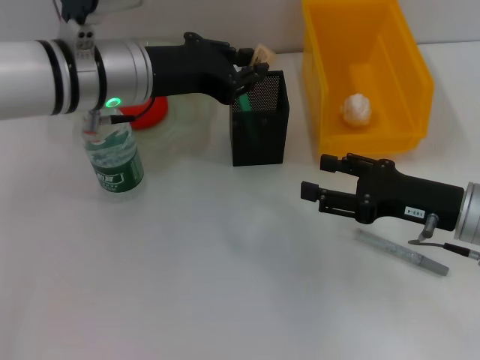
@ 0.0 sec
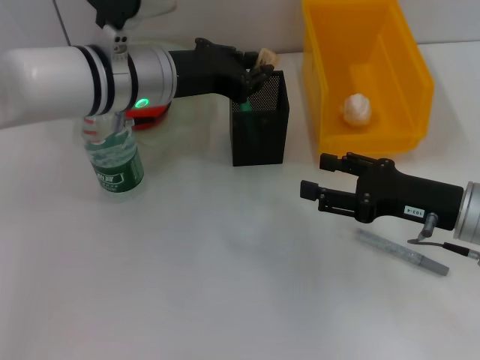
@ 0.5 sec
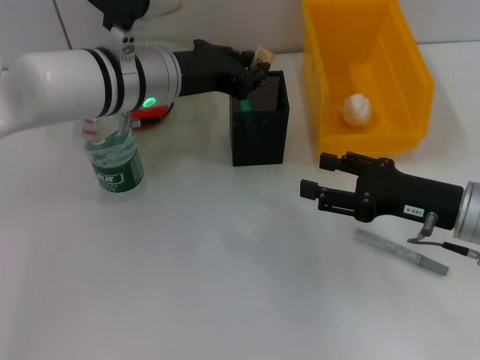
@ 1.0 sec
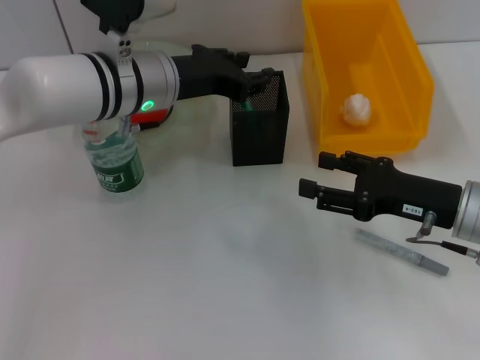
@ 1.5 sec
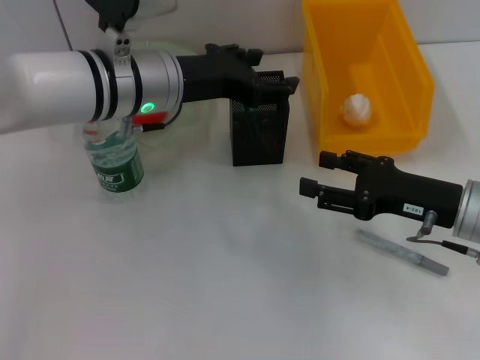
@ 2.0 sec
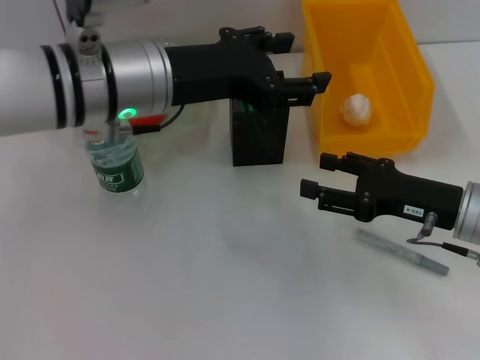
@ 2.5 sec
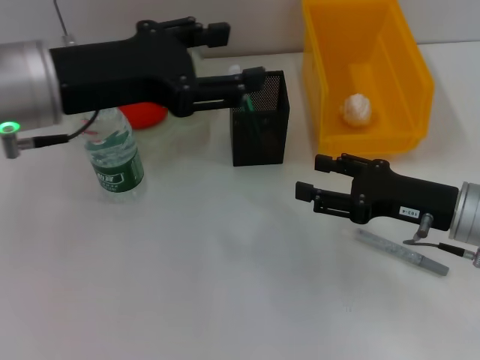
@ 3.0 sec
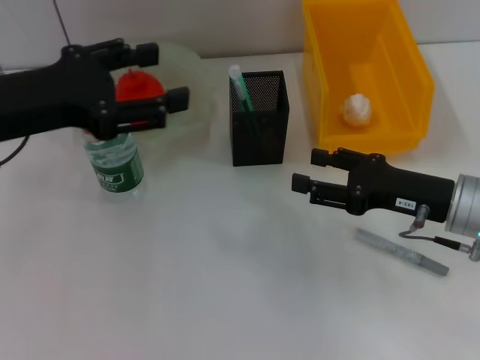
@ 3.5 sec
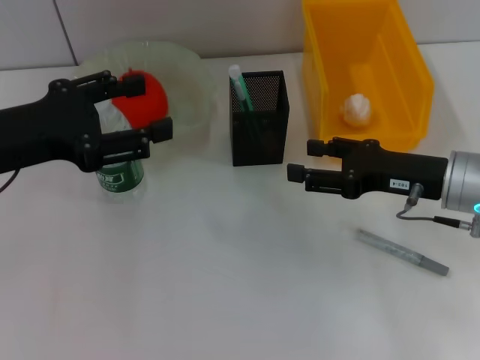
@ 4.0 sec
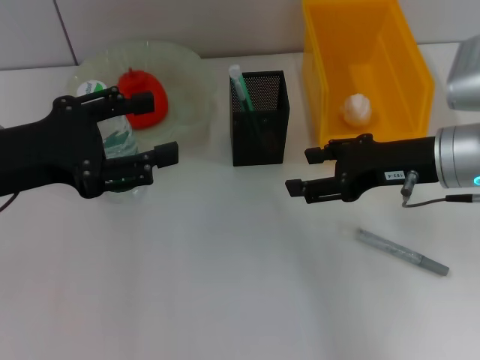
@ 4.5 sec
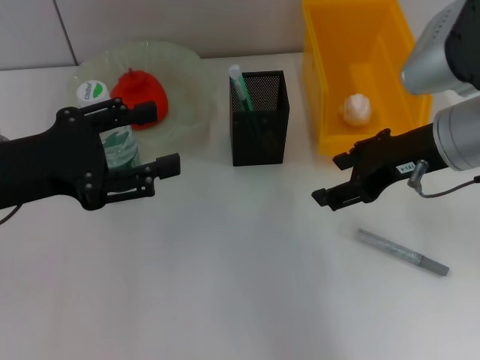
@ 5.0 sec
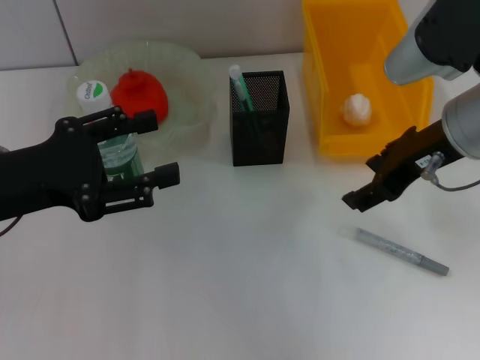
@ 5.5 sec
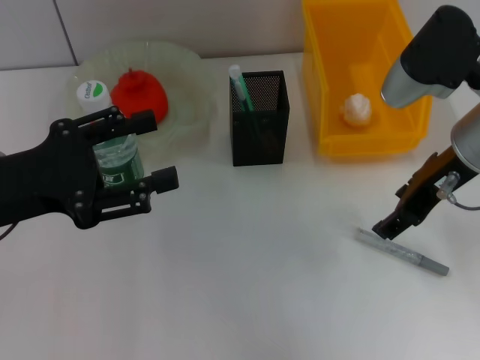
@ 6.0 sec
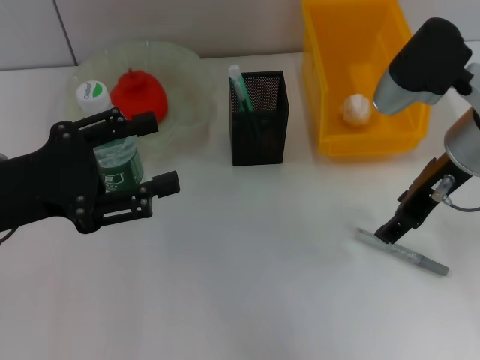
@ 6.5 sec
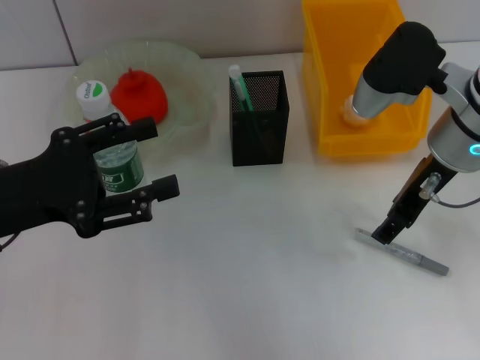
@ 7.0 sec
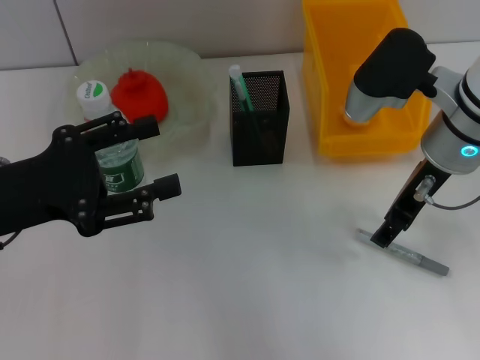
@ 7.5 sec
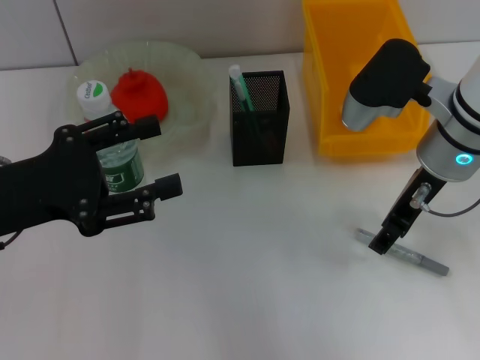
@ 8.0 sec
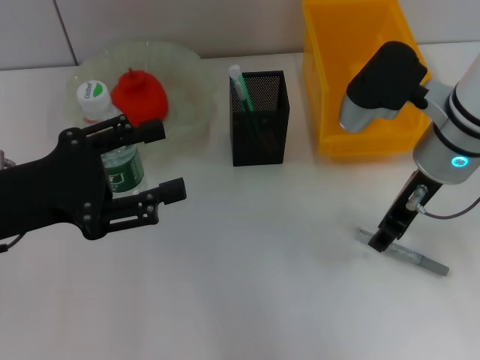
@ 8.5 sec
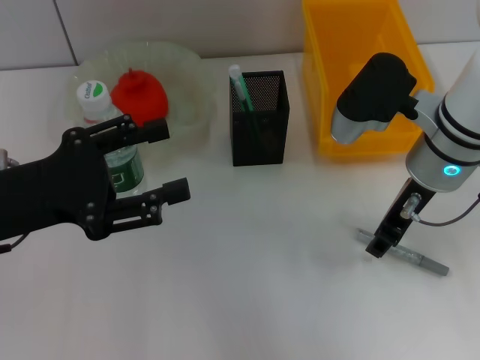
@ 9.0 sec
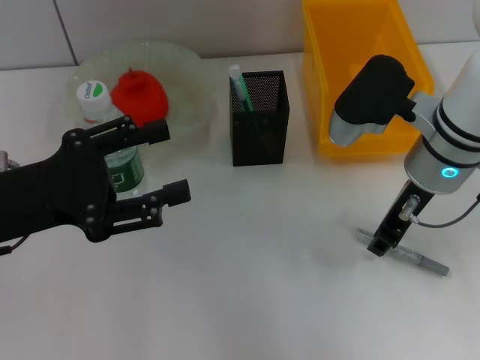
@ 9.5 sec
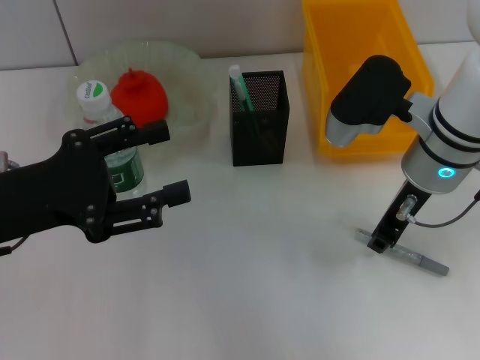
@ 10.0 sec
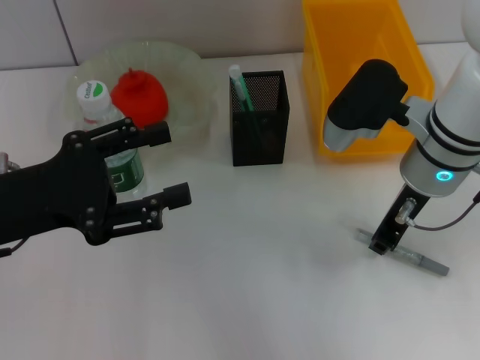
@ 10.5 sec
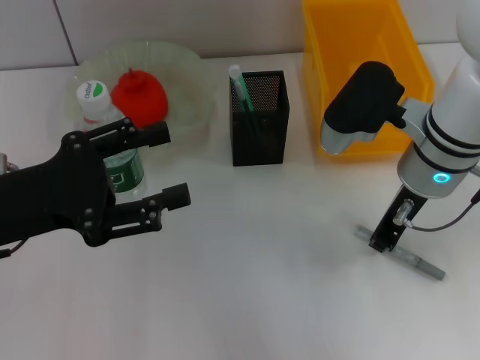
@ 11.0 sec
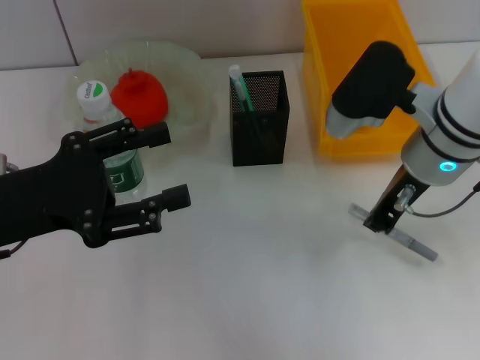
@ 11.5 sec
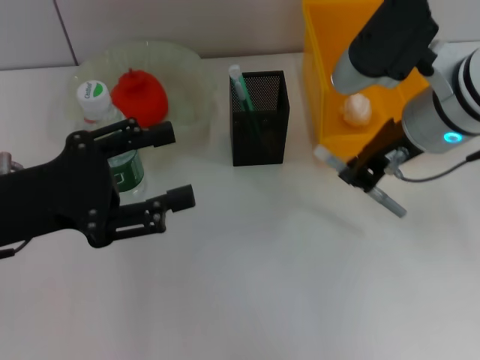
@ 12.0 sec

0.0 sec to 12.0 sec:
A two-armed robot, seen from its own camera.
Step, 2.0 sec to 11.0 sec: Grab the gray glue with the right hand.
0.0 sec to 2.0 sec: The left gripper opens up.
2.0 sec to 4.0 sec: The left gripper travels to the left and backward by approximately 20 cm.
4.0 sec to 6.0 sec: The right gripper goes about 10 cm upward.
6.0 sec to 8.0 sec: There are only small adjustments of the grippers.
8.0 sec to 10.0 sec: The right gripper closes its fingers.
10.0 sec to 12.0 sec: The right gripper ends up approximately 5 cm from where it was.

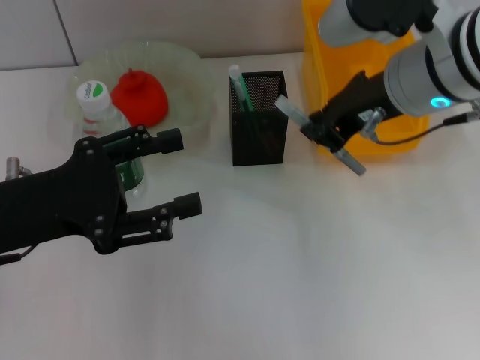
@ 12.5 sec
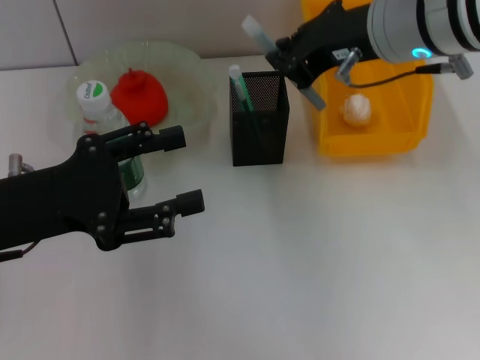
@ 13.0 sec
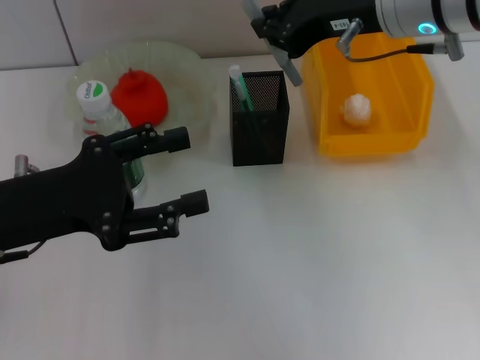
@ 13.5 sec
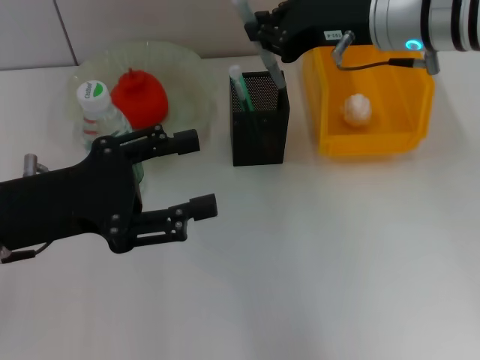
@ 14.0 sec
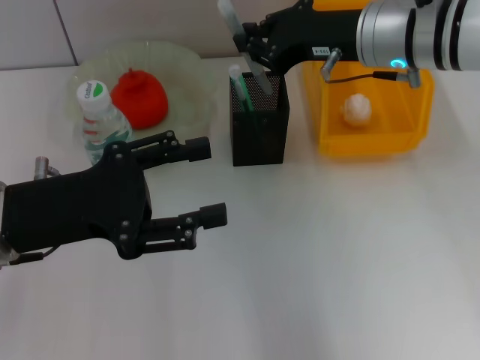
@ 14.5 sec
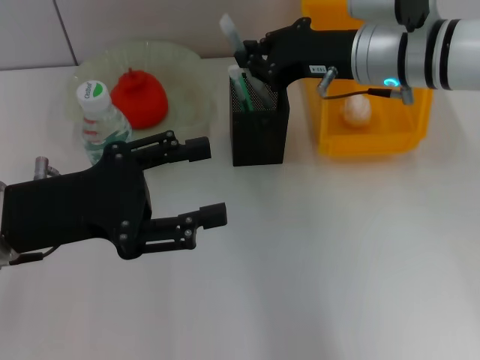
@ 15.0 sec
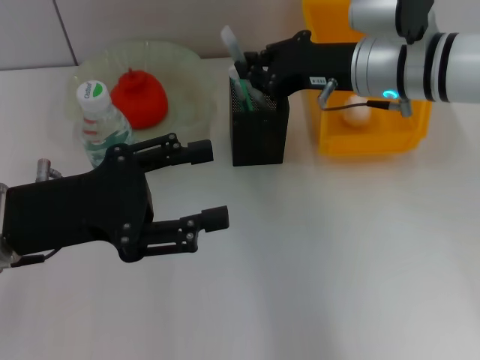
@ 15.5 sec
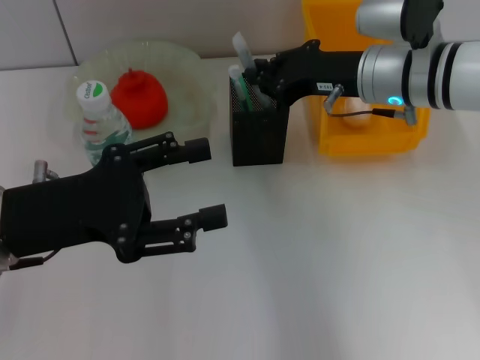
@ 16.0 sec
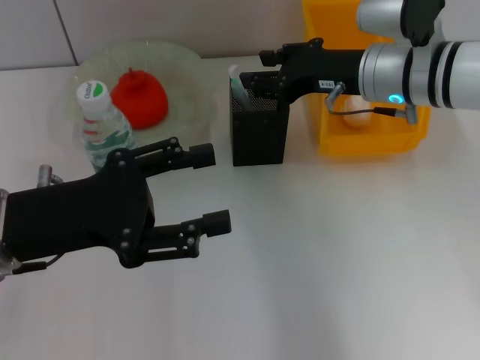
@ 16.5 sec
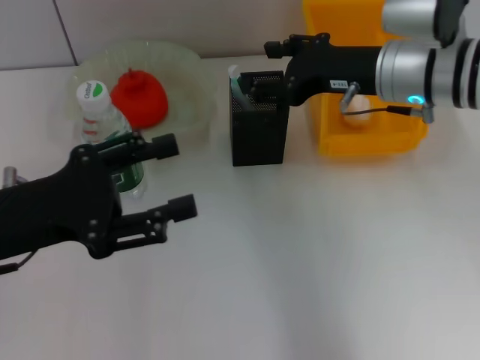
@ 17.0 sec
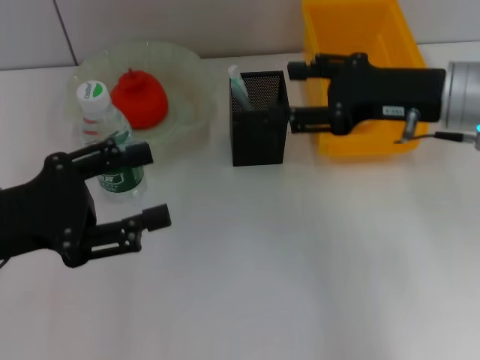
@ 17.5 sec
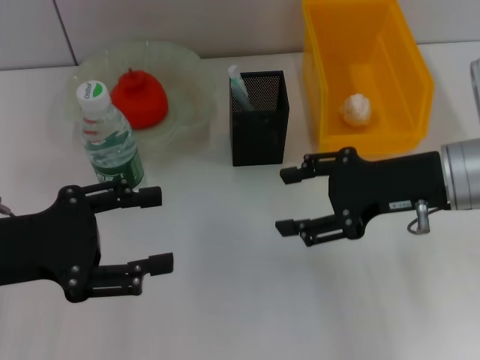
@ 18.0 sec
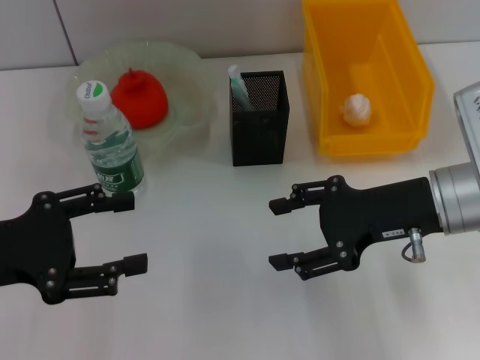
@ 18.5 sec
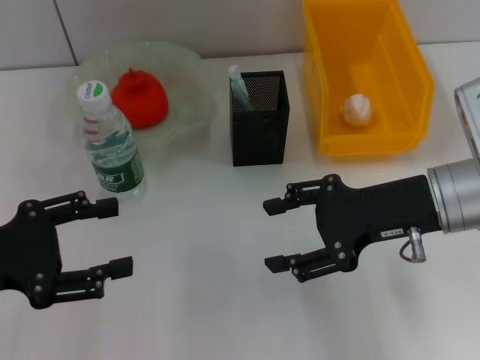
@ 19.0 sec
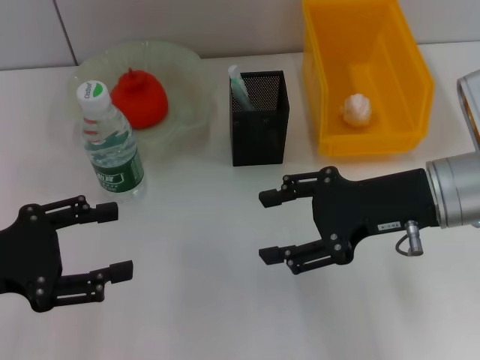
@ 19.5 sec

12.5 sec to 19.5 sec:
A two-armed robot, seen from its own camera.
Step, 12.5 sec to 16.5 sec: Place the gray glue into the pen holder with the right hand.
12.5 sec to 14.5 sec: The right gripper moves forward, roughly 5 cm.
14.5 sec to 16.0 sec: The grippers stay close to where they were, moving slightly.
16.0 sec to 17.5 sec: The right gripper shifts roughly 10 cm backward and to the right, and opens.
17.5 sec to 19.5 sec: The right gripper goes approximately 5 cm backward.

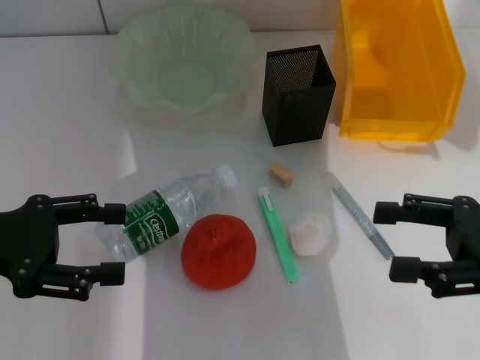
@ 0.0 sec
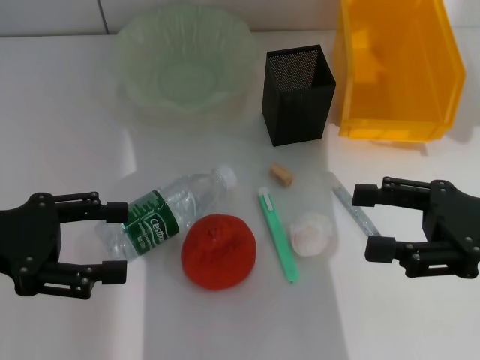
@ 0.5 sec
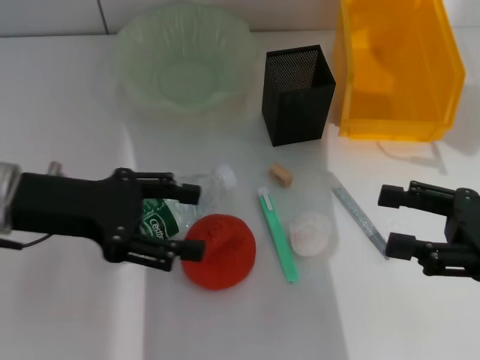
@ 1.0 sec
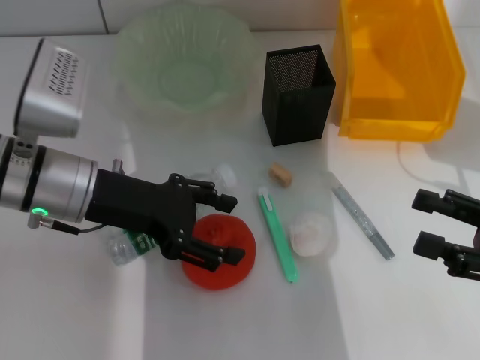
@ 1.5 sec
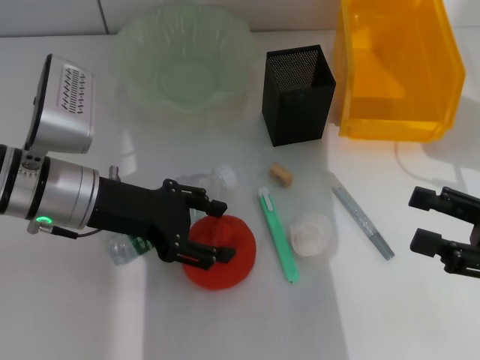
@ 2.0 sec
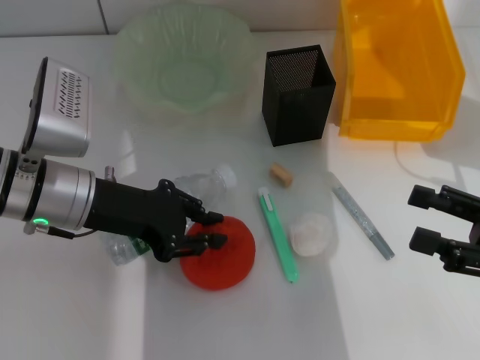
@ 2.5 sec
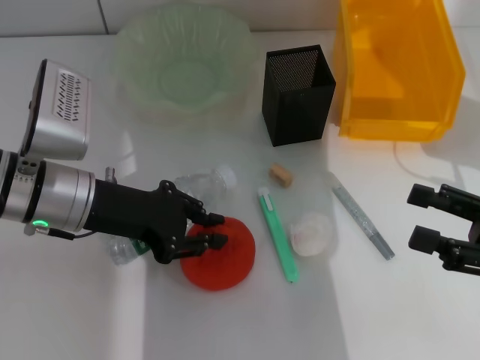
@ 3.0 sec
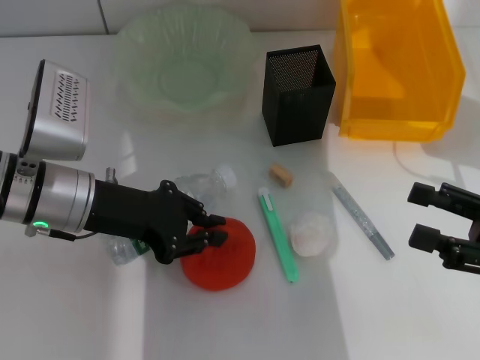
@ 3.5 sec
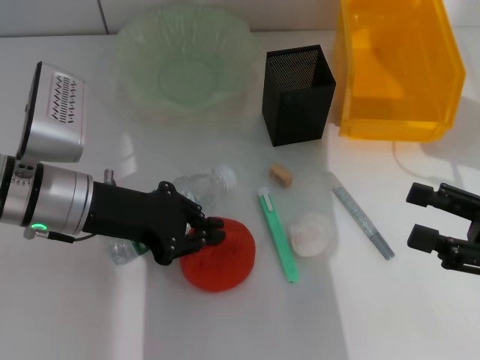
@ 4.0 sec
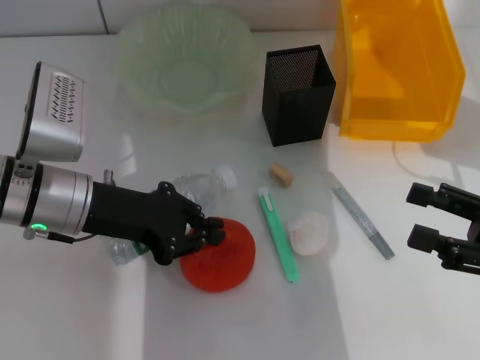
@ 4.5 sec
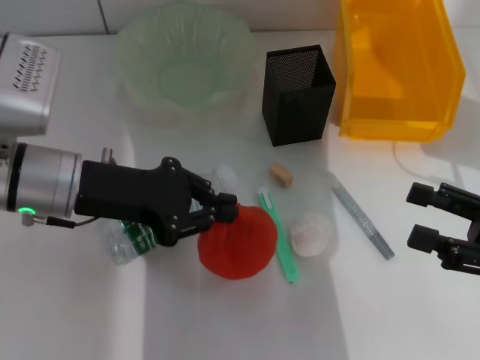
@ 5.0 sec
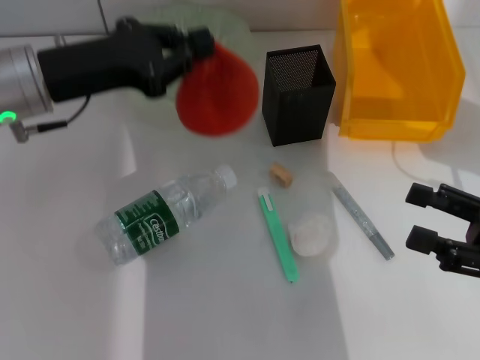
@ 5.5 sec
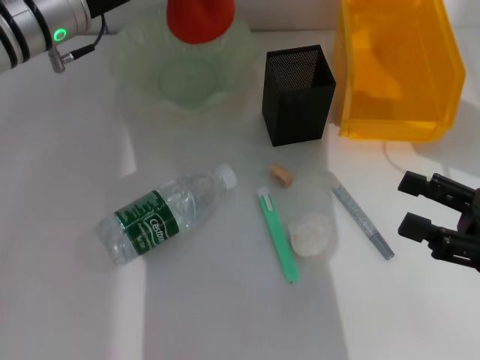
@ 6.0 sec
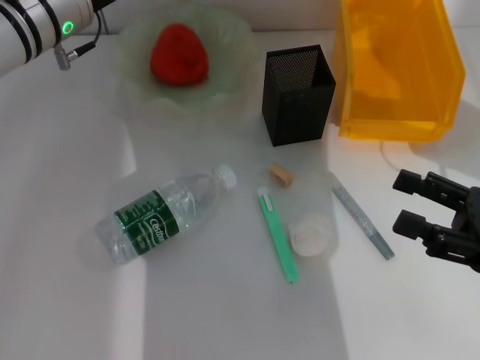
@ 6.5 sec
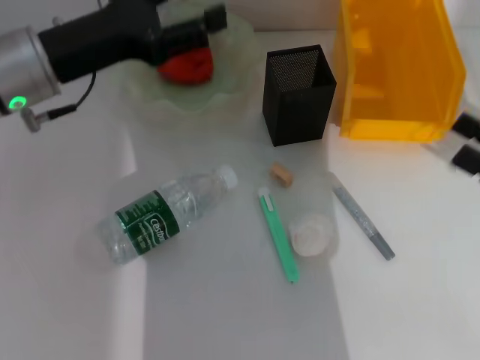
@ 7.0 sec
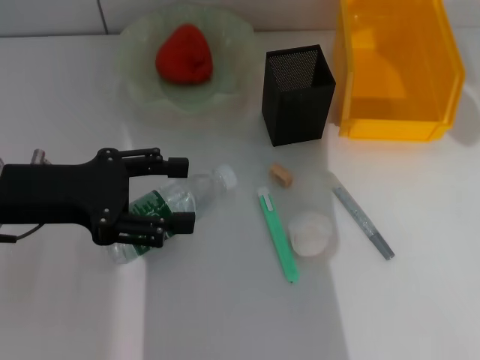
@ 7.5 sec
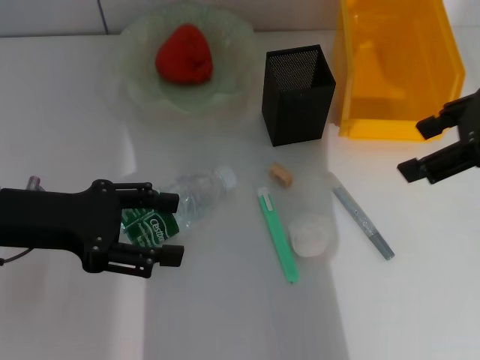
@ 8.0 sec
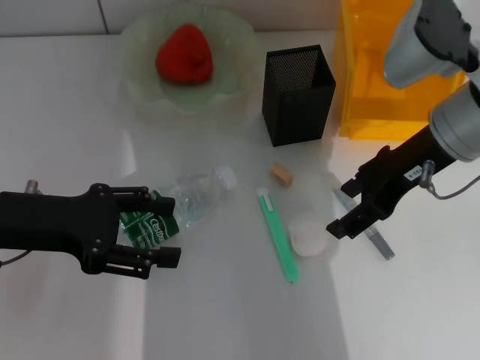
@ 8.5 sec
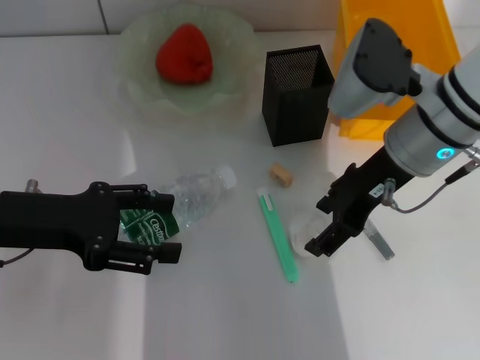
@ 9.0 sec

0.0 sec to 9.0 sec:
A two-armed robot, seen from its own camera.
Step, 0.0 sec to 4.5 sec: Grab the orange with the left hand.
Step, 5.0 sec to 6.0 sec: Place the orange into the fruit bowl with the left hand.
0.0 sec to 2.0 sec: The left gripper travels to the right and forward by some 15 cm.
2.0 sec to 4.5 sec: The left gripper closes up.
4.5 sec to 7.0 sec: The left gripper shifts about 5 cm upward, moves about 15 cm forward and comes back, and opens up.
7.0 sec to 9.0 sec: The left gripper is displaced backward by some 10 cm; the right gripper moves to the left and forward, some 25 cm.
